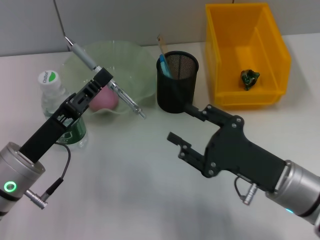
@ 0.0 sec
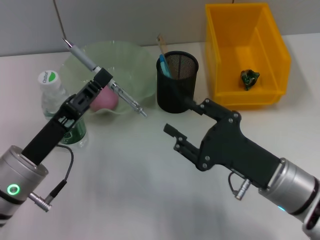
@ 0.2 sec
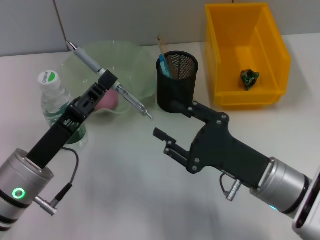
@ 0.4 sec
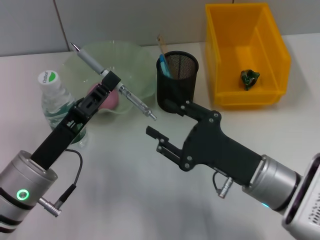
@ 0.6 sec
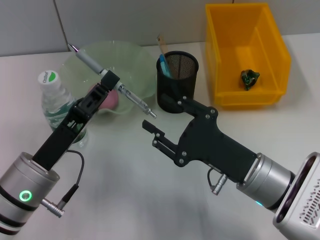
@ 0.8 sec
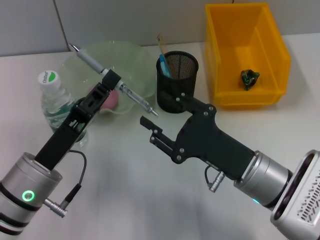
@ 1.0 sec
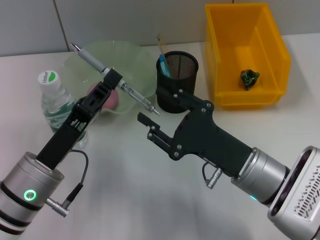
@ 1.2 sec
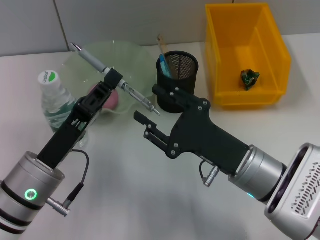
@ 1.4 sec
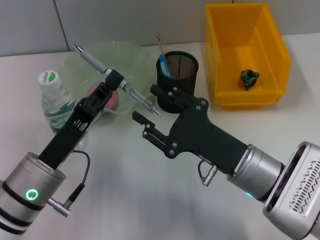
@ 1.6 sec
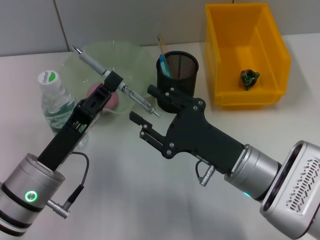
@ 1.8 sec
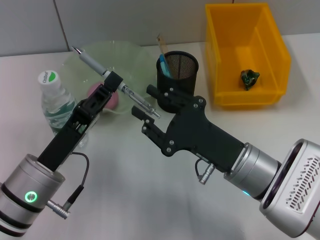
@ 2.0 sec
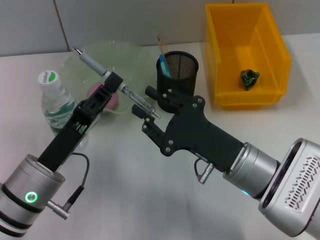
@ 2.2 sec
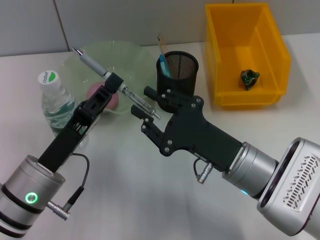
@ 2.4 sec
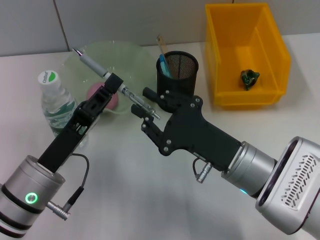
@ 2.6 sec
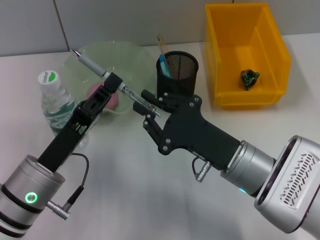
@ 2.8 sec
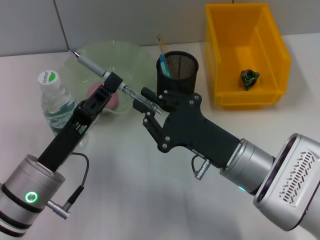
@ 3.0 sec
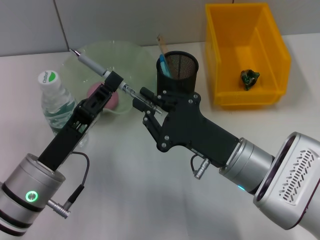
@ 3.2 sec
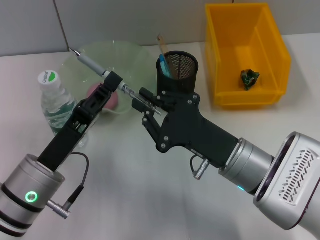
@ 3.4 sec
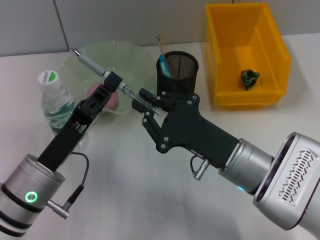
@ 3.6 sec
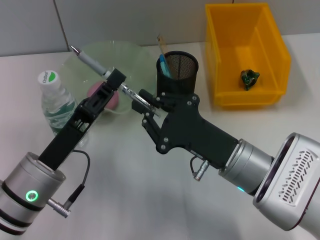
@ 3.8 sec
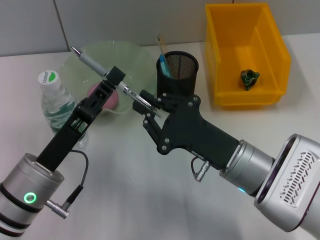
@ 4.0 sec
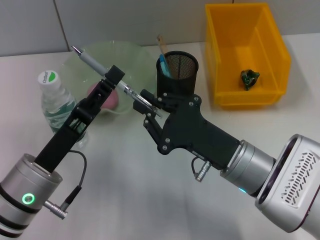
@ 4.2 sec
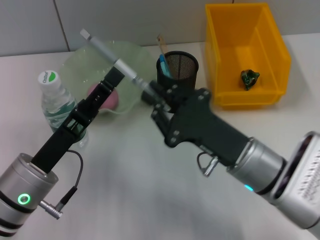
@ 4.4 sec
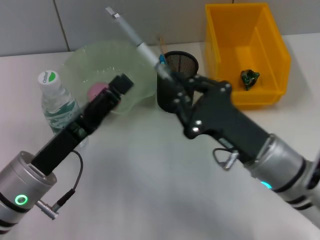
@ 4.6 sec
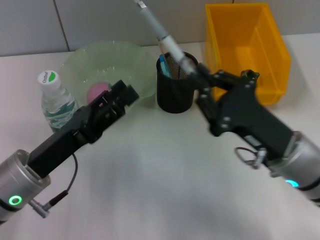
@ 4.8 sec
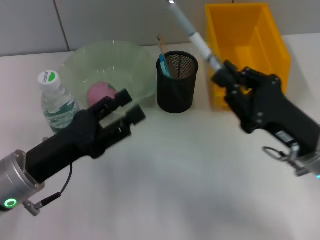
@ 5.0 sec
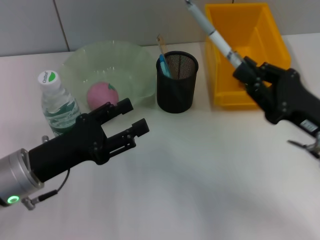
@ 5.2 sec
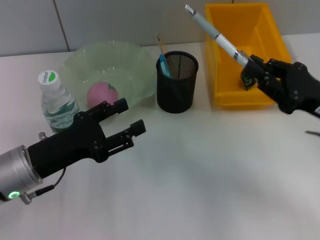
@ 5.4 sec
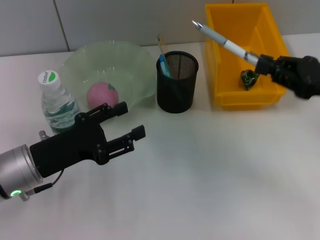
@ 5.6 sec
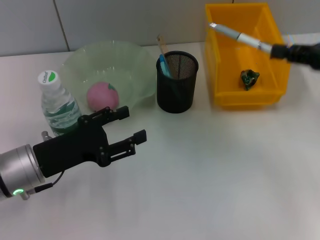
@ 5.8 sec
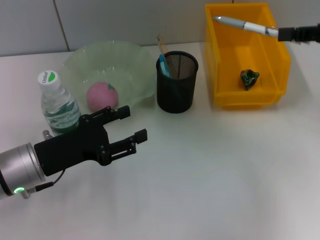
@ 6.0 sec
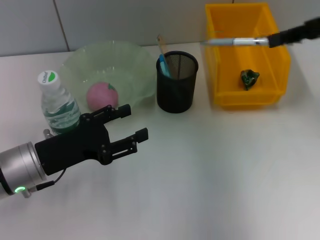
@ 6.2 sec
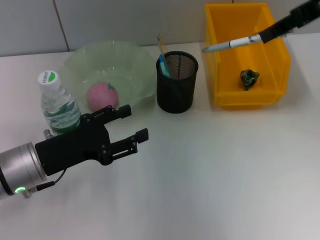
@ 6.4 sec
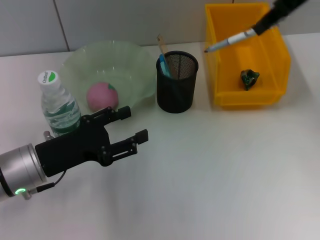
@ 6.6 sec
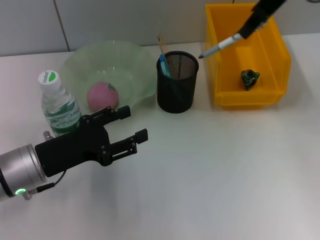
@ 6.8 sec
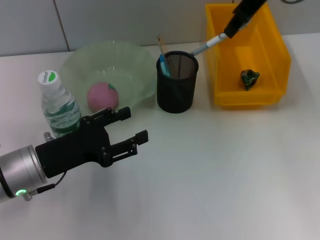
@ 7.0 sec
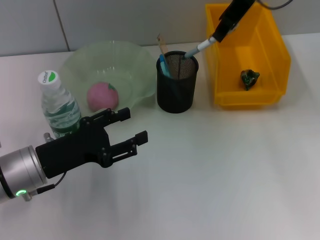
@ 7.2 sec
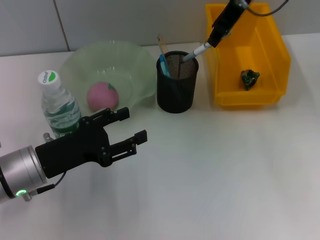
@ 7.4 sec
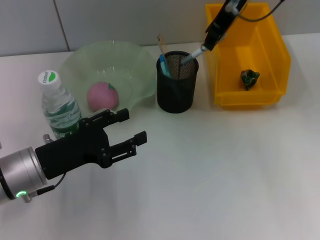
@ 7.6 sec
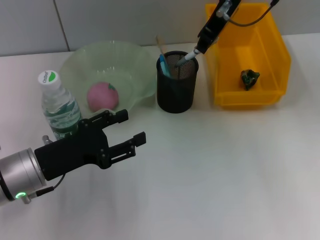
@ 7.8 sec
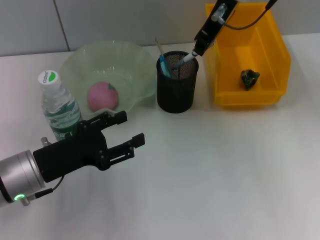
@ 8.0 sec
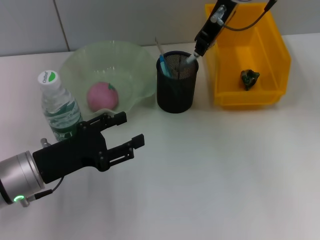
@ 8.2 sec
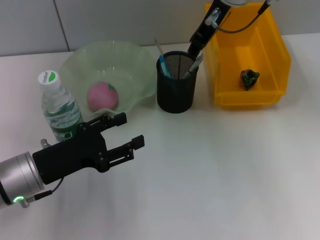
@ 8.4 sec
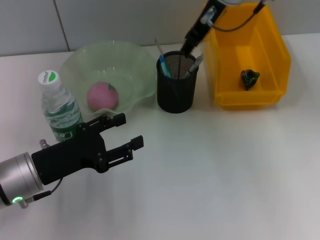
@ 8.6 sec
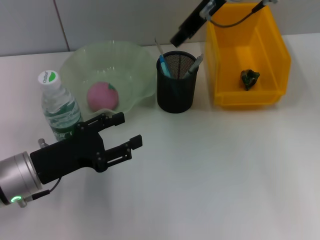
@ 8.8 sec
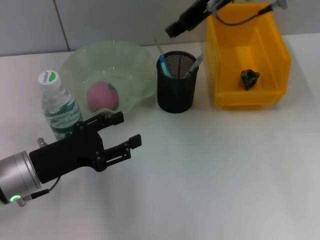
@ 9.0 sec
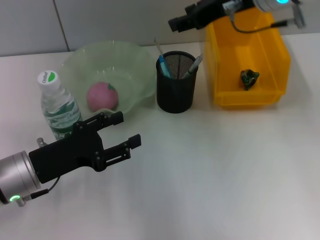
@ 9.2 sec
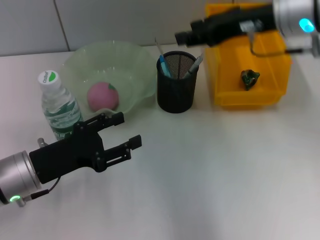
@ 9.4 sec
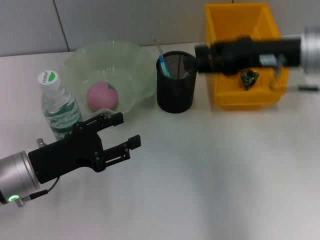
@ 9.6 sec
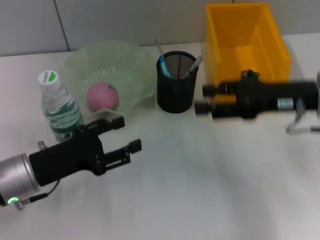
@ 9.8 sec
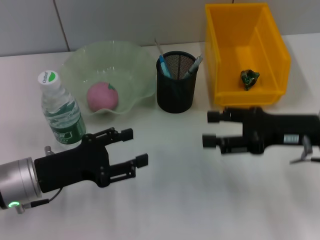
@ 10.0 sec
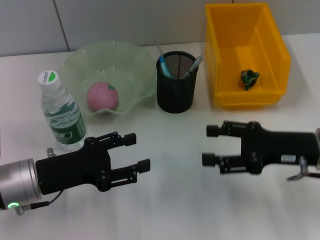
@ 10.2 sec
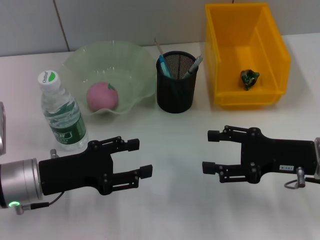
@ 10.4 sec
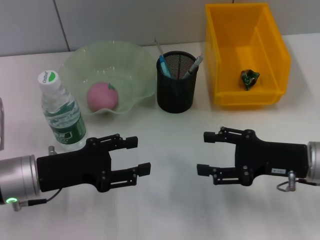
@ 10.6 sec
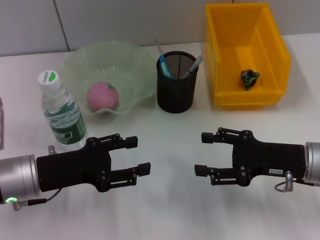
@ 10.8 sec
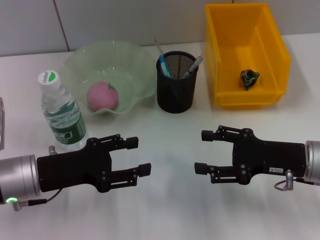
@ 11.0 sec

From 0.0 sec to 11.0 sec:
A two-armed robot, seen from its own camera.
From 0.0 sec to 1.6 sec: The right gripper goes some 5 cm to the left.
From 1.6 sec to 3.2 sec: The right gripper closes up.
From 3.2 sec to 4.8 sec: The left gripper opens up, while the right gripper moves to the right, approximately 5 cm.
From 4.8 sec to 6.2 sec: The right gripper goes approximately 25 cm upward, to the right and forward.
From 6.2 sec to 7.8 sec: The right gripper travels to the left and forward by some 20 cm.
From 7.8 sec to 9.4 sec: The right gripper goes approximately 10 cm backward and to the right, and opens up.
From 9.4 sec to 11.0 sec: The right gripper heads downward and backward, covering roughly 20 cm, and opens its fingers.

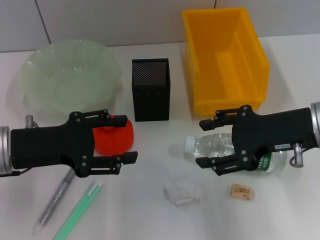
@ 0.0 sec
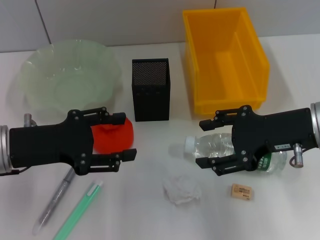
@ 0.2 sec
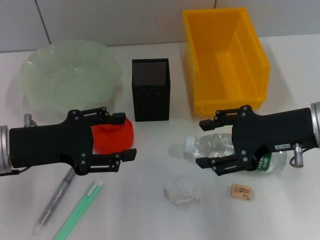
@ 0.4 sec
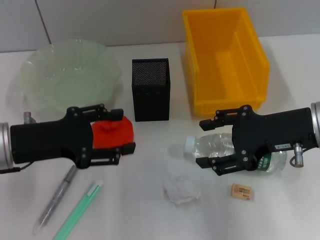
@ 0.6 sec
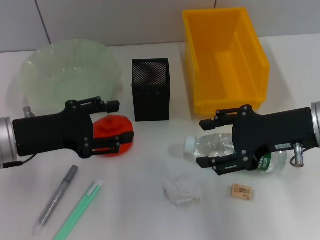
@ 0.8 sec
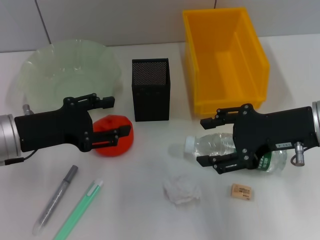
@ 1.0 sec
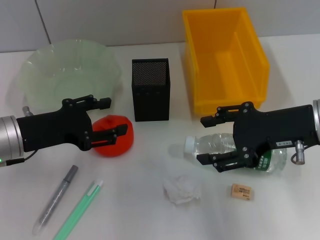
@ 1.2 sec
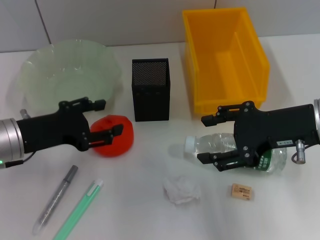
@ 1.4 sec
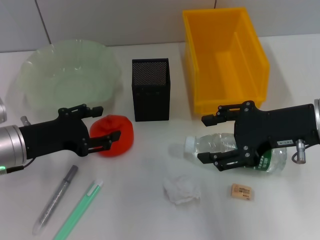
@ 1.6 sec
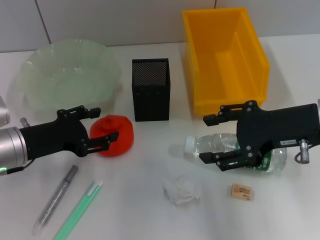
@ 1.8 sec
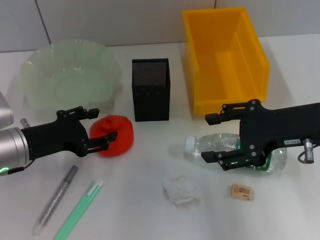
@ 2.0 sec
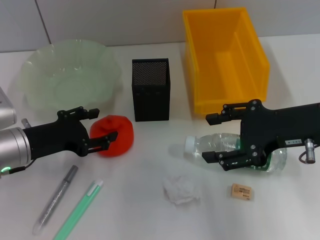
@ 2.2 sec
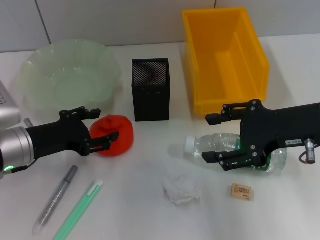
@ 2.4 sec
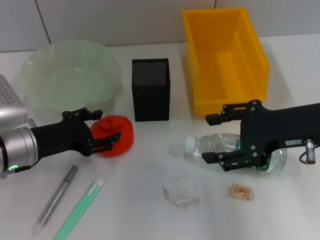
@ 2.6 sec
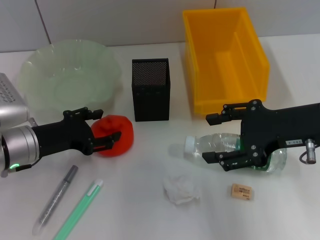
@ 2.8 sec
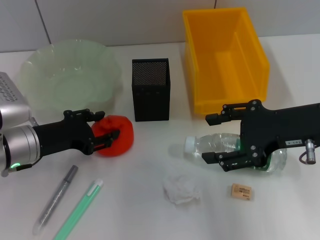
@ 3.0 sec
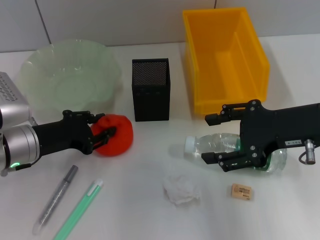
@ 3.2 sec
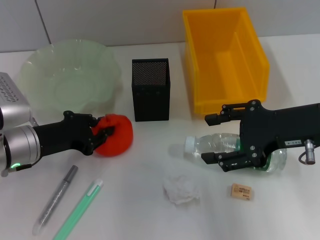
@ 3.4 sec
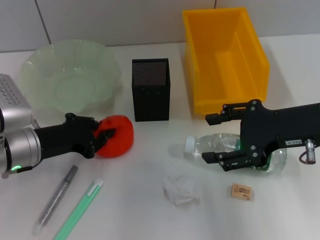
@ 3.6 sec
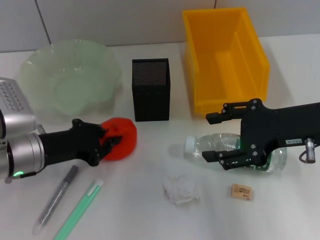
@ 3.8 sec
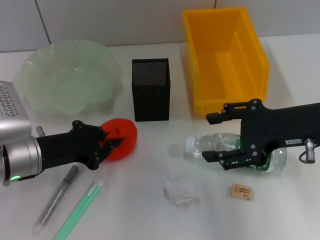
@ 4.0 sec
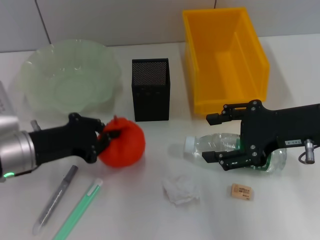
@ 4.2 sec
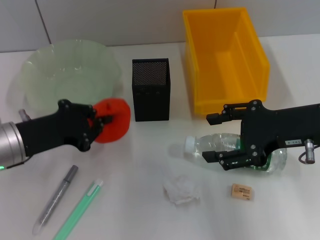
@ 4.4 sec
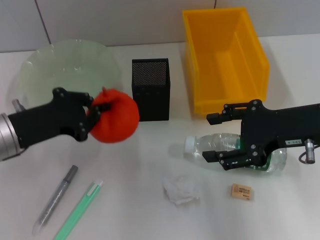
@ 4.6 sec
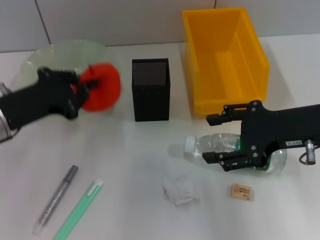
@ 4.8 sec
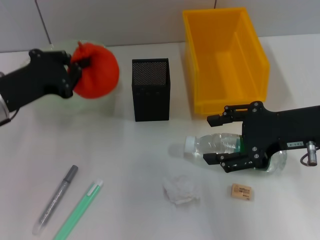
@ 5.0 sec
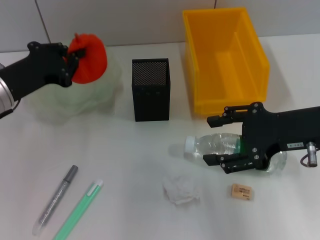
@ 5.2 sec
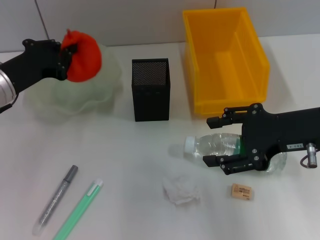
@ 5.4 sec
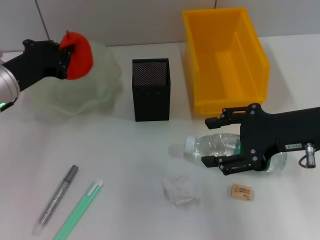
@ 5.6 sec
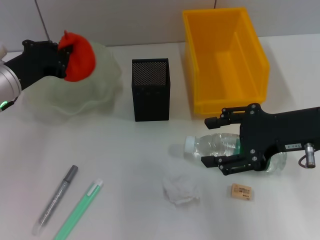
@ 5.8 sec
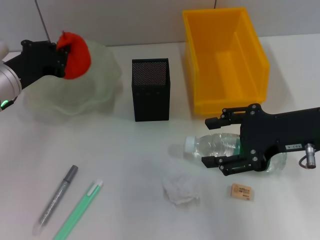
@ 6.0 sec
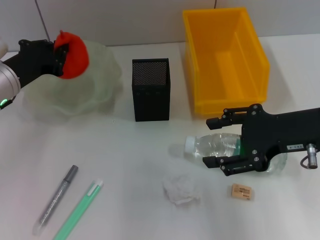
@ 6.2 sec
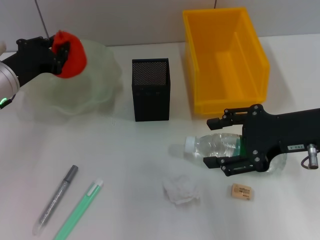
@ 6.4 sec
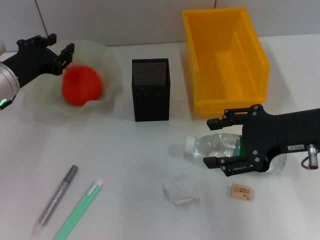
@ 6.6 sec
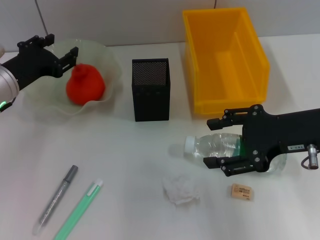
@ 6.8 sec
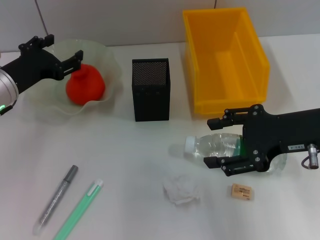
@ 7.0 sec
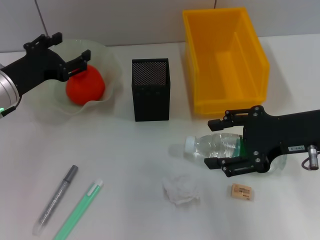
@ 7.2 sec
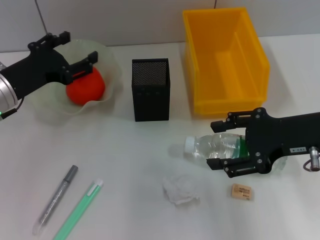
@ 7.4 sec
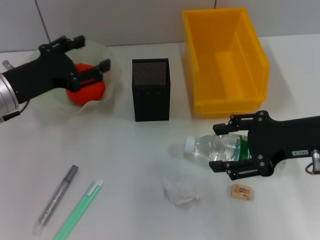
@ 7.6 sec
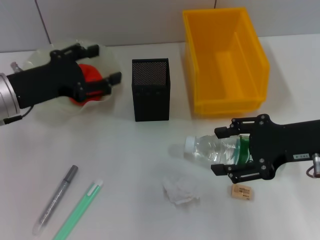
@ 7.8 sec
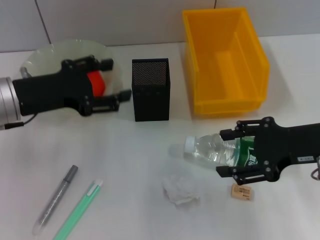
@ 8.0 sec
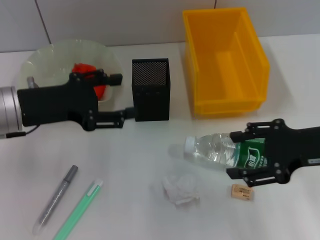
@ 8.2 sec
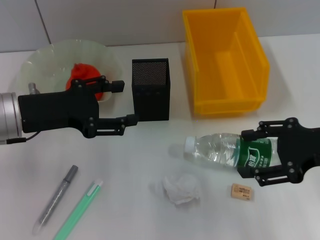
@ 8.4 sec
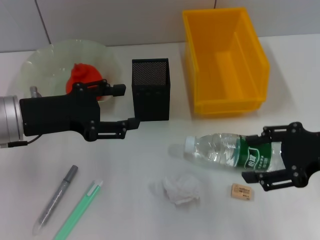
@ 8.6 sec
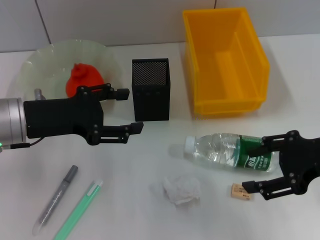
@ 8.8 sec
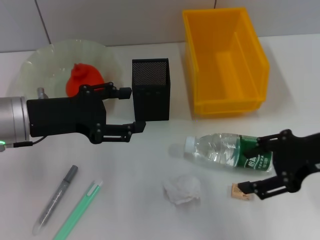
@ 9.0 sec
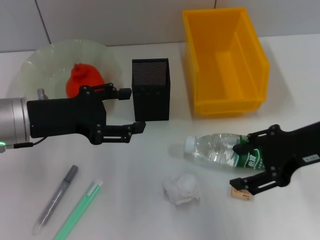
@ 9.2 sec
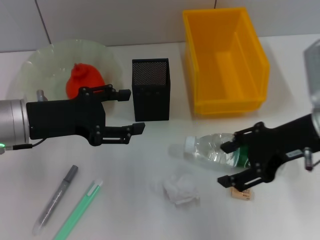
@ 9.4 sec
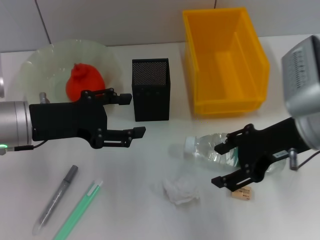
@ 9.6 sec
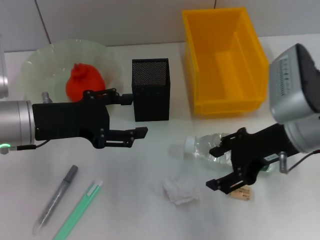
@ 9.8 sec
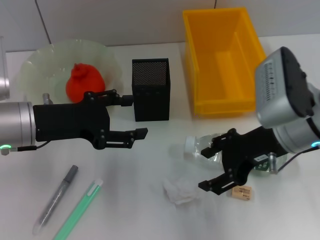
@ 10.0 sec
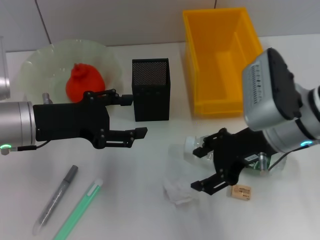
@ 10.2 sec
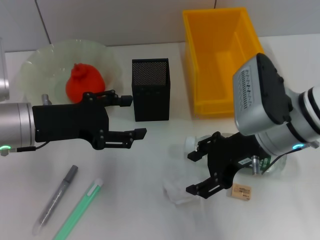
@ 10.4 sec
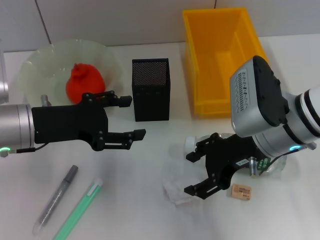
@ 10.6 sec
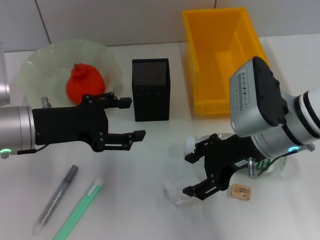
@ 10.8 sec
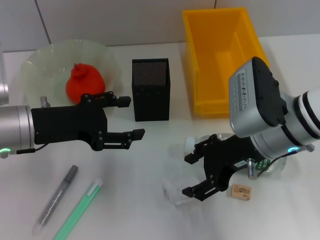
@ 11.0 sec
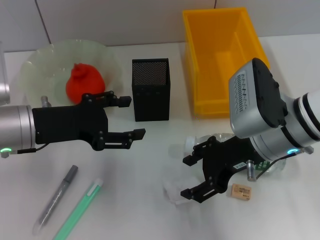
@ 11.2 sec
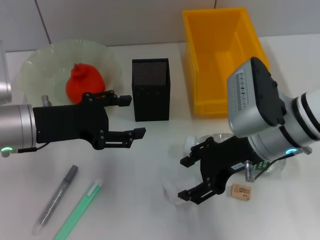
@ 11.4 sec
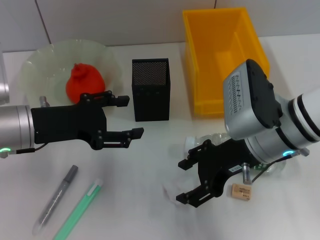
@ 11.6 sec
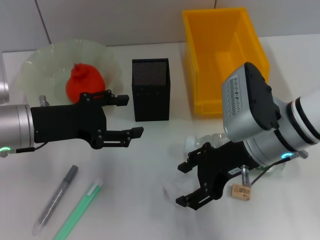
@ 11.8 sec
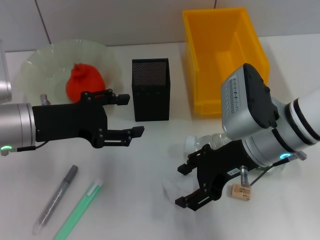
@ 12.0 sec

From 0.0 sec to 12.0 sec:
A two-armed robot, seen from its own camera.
Step, from 0.0 sec to 4.0 sec: Grab the orange with the left hand.
Step, from 4.2 sec to 6.8 sec: Place the orange into the fruit bowl with the left hand.
From 1.6 sec to 3.0 sec: The grippers stay close to where they were, moving slightly.
From 3.0 sec to 4.4 sec: The left gripper closes up.
From 4.4 sec to 6.0 sec: The left gripper travels forward by approximately 10 cm.
From 6.0 sec to 7.6 sec: The left gripper opens up.
From 9.0 sec to 10.4 sec: The right gripper shifts some 10 cm to the left.
From 10.4 sec to 12.0 sec: The grippers make only small movements.
